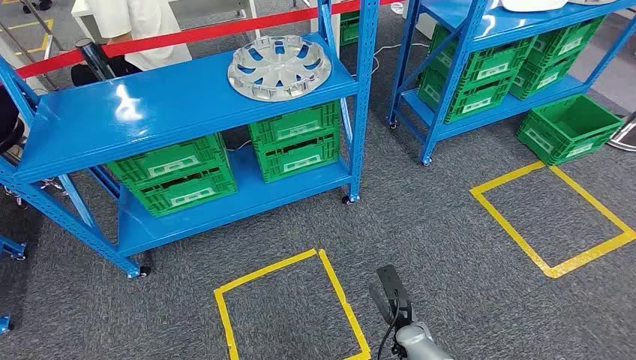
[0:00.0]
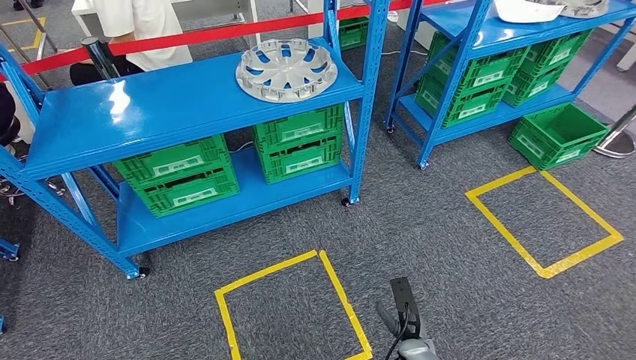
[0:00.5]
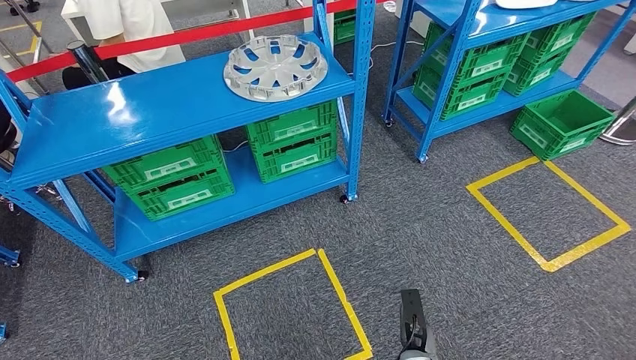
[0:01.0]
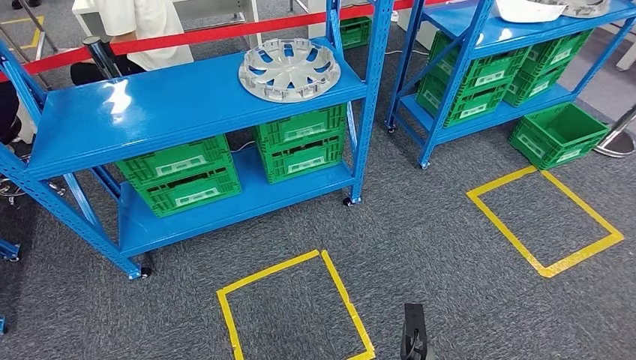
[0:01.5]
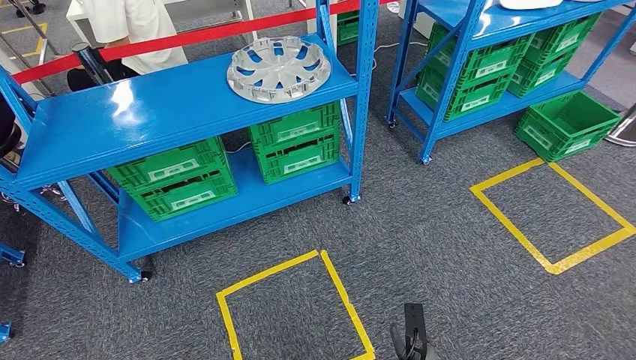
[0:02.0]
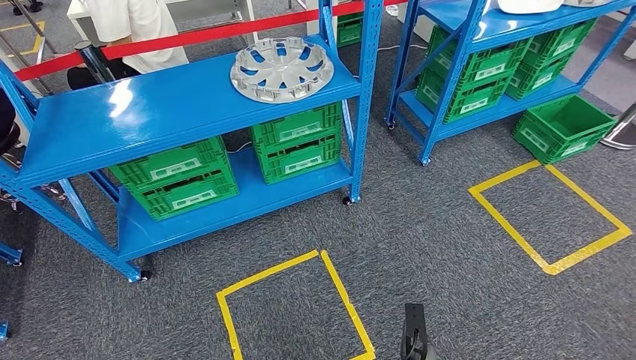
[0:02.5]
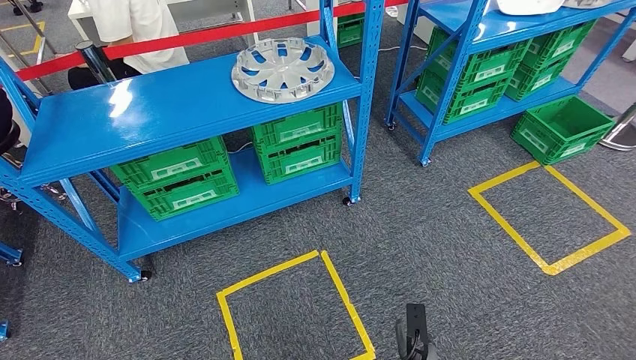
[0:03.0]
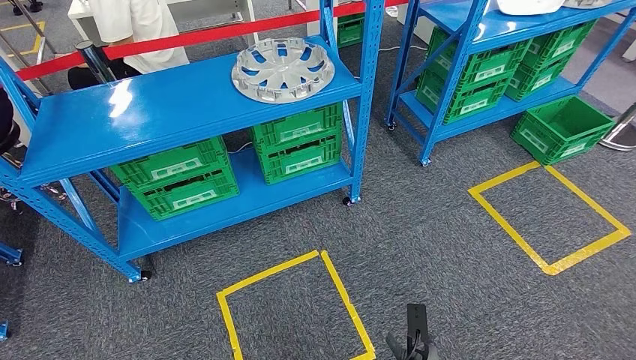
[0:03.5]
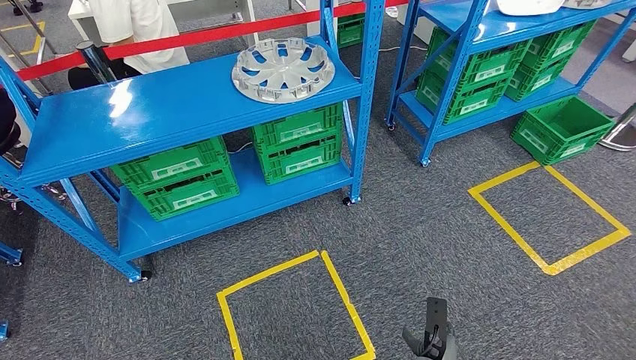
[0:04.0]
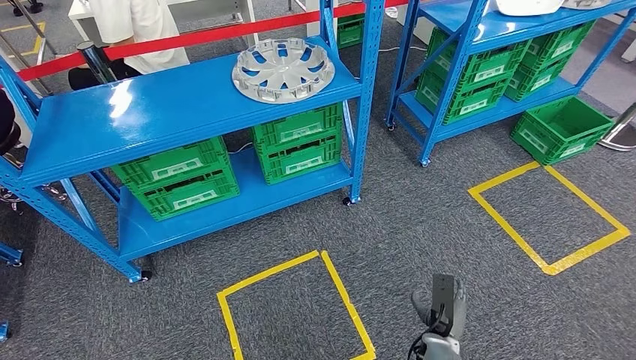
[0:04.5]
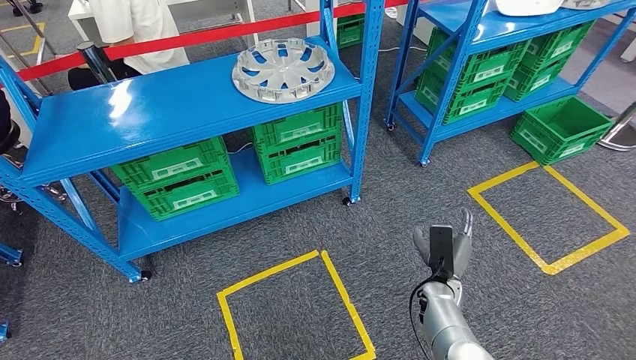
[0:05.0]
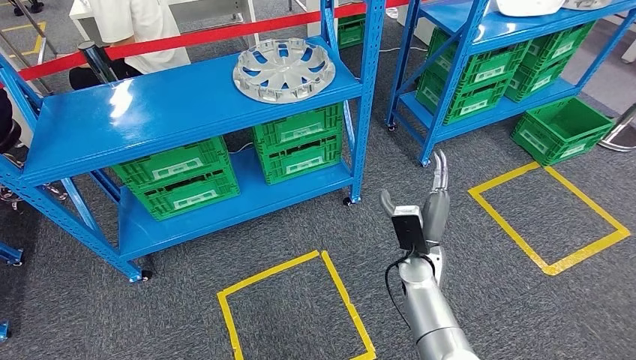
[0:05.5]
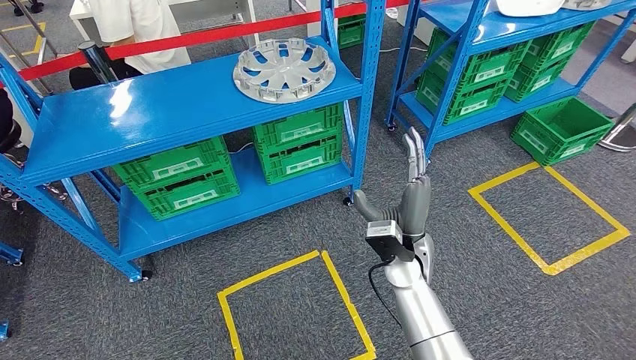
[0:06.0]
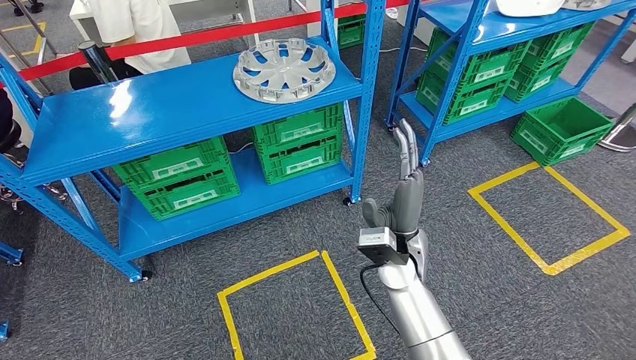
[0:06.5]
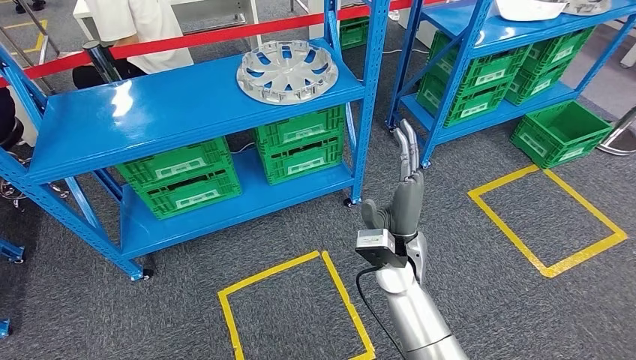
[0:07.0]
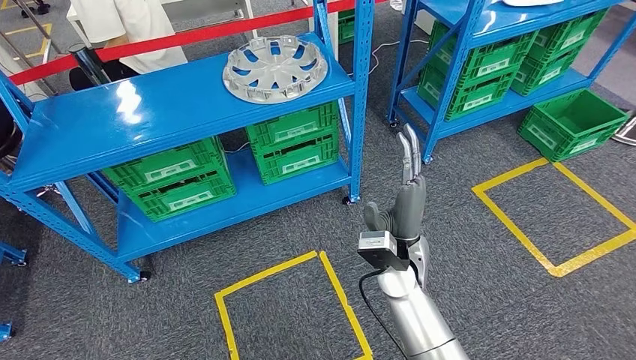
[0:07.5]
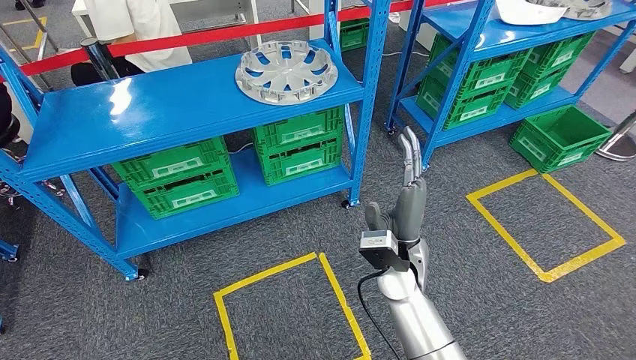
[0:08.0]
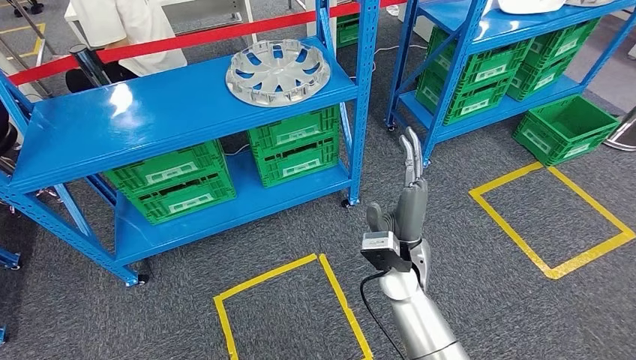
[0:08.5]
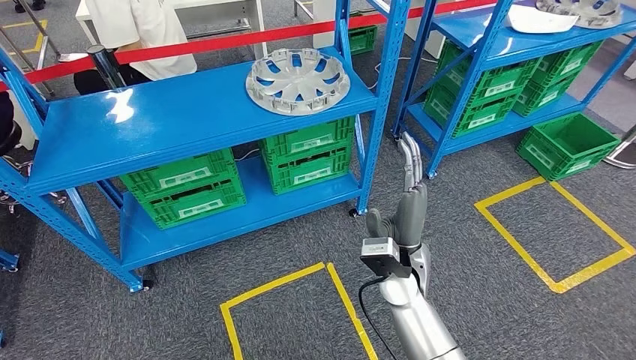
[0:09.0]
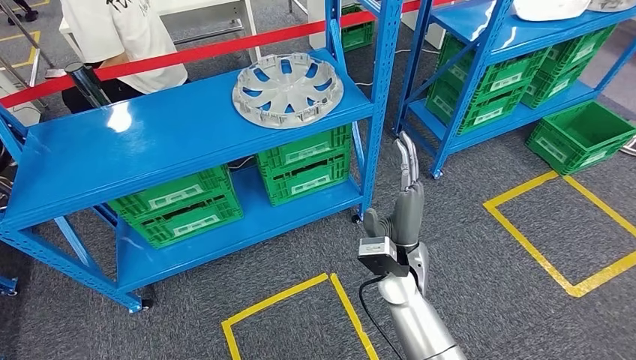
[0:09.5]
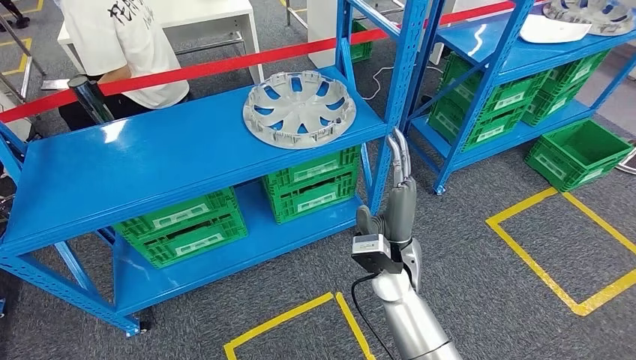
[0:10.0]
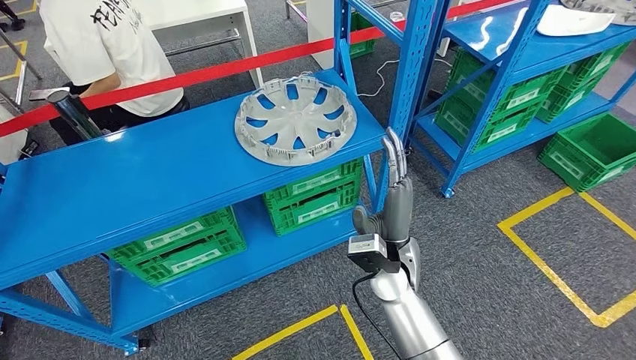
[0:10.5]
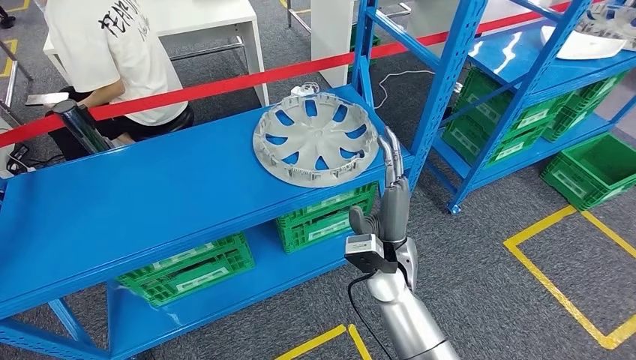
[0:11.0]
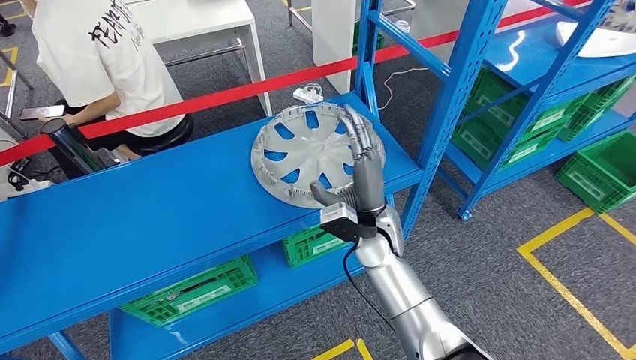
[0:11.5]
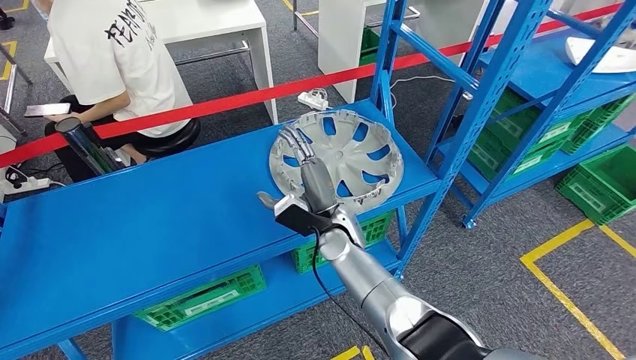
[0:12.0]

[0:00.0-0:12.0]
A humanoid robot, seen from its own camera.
0:02.0 to 0:04.0: The hands stay close to where they were, moving slightly.
0:04.0 to 0:06.0: The right hand moves forward and upward, some 30 cm.

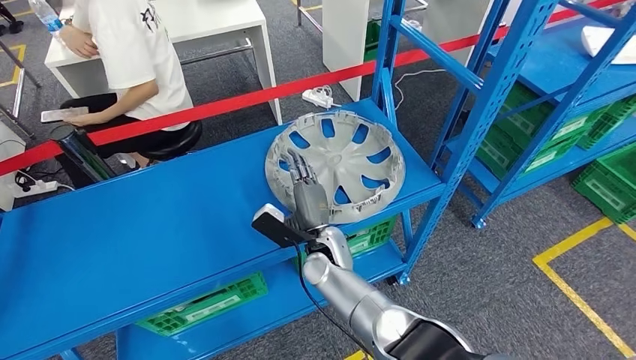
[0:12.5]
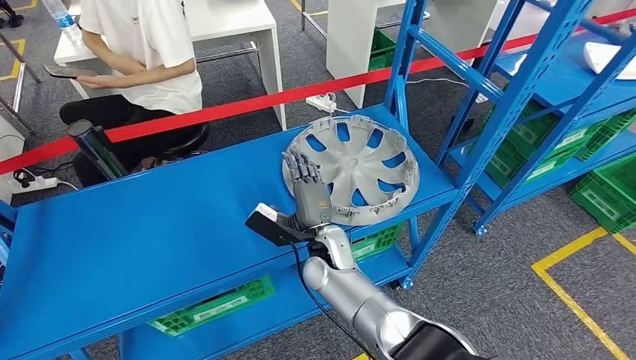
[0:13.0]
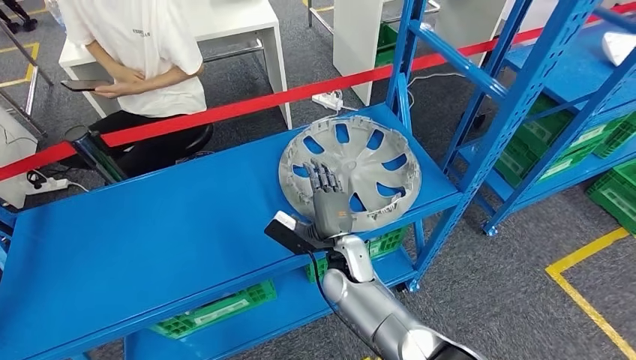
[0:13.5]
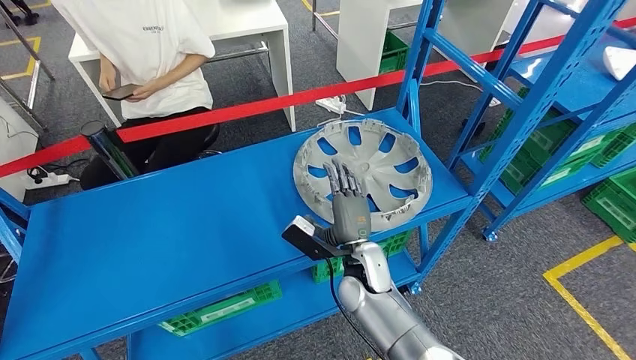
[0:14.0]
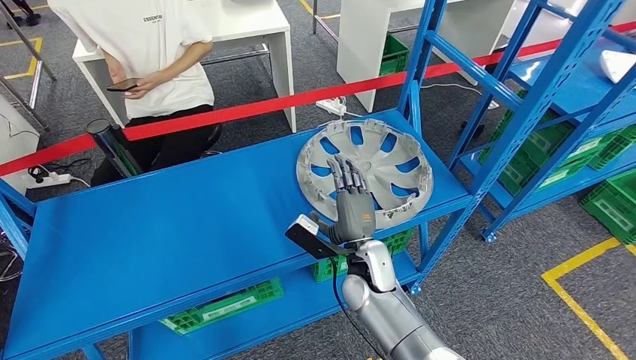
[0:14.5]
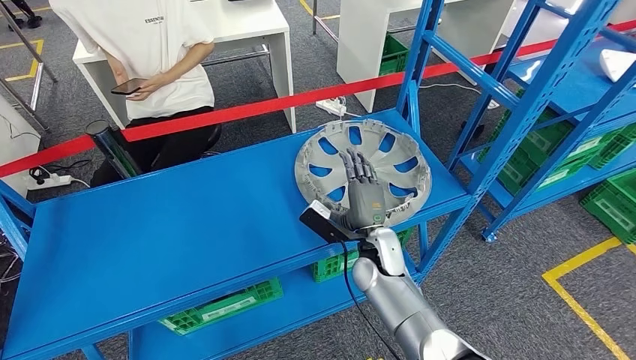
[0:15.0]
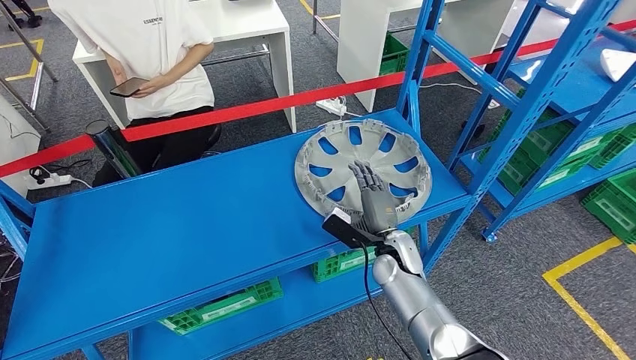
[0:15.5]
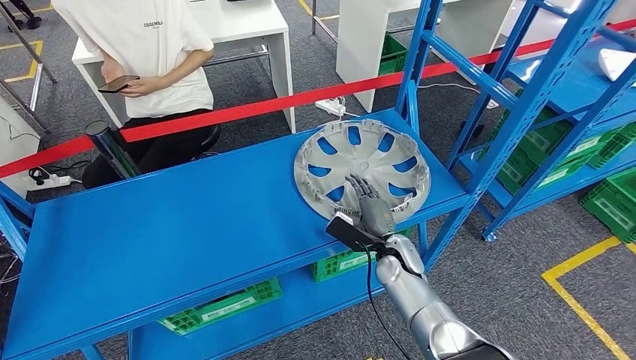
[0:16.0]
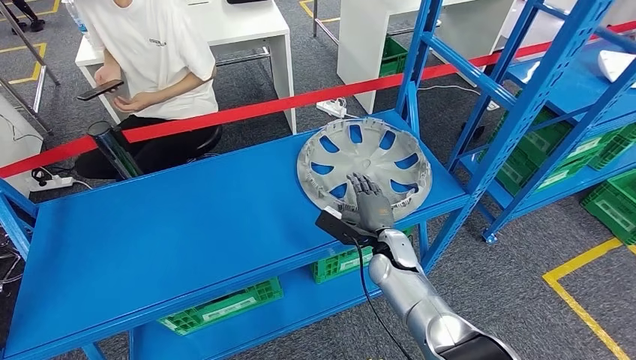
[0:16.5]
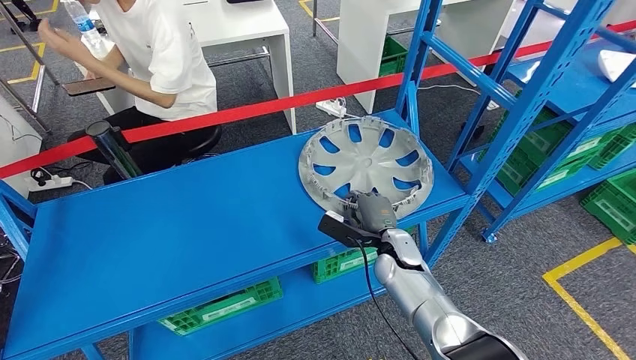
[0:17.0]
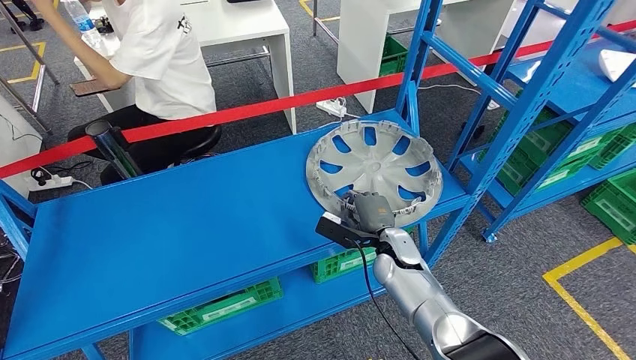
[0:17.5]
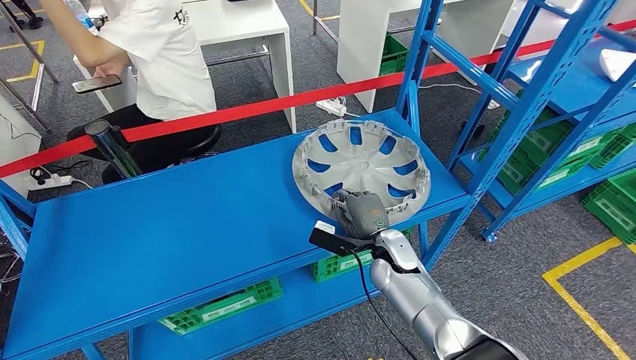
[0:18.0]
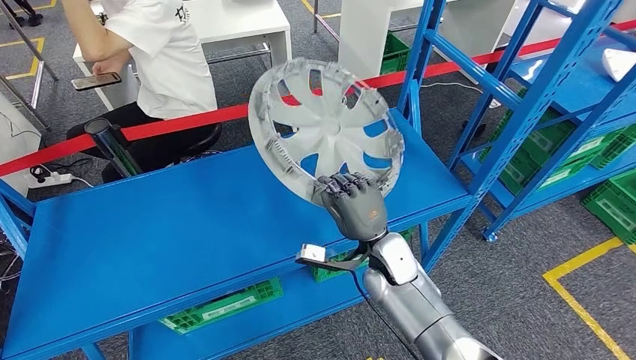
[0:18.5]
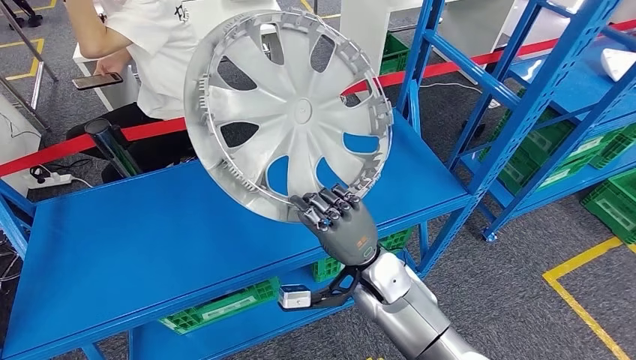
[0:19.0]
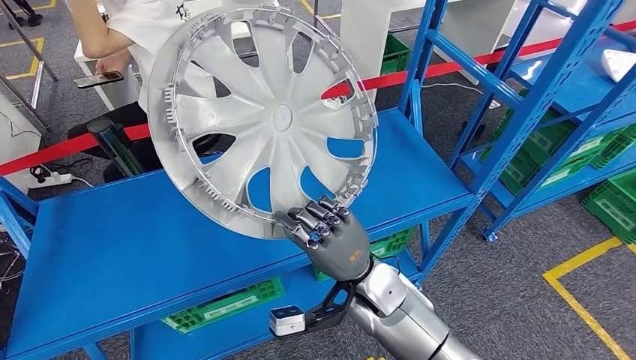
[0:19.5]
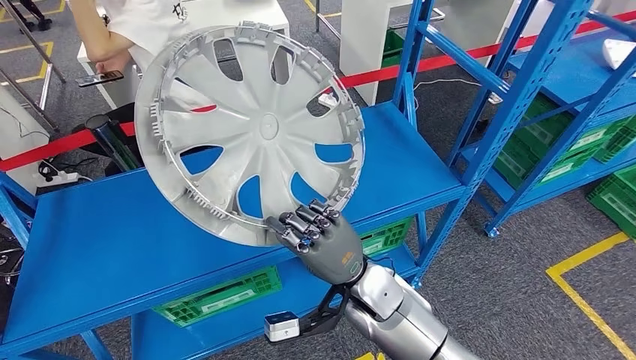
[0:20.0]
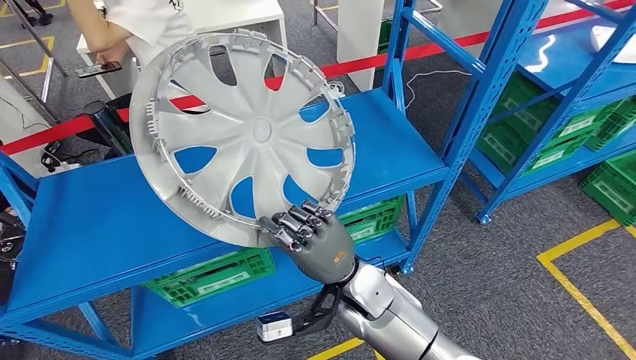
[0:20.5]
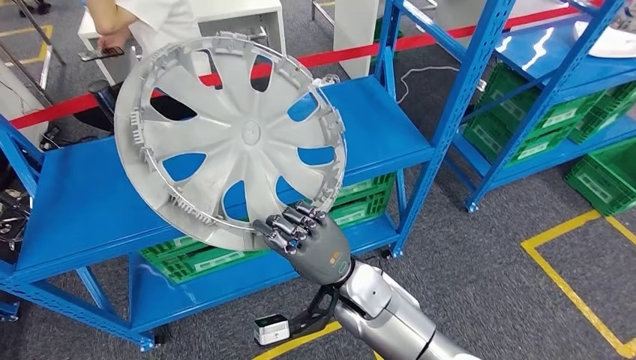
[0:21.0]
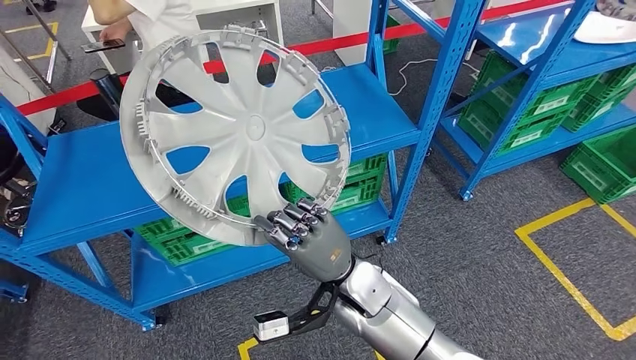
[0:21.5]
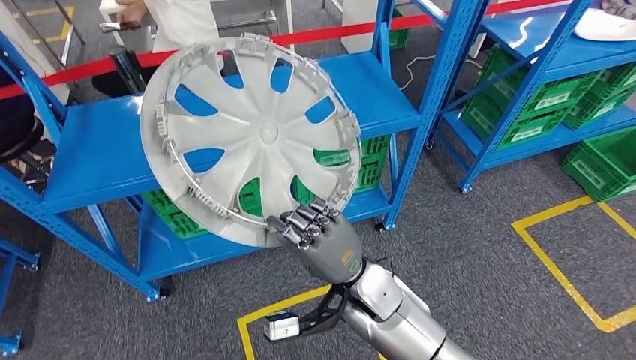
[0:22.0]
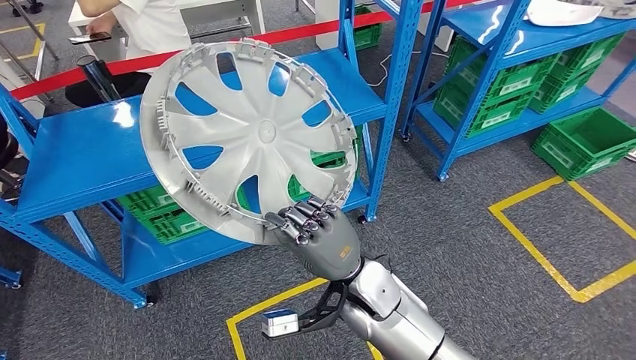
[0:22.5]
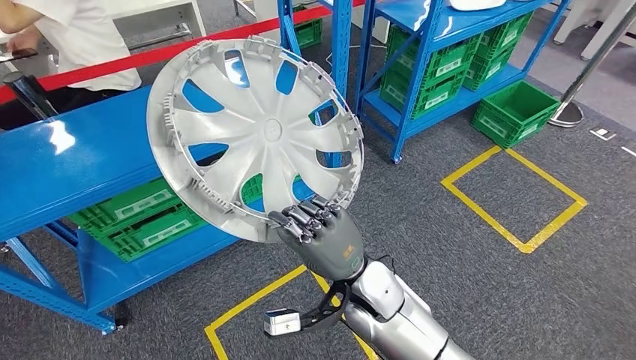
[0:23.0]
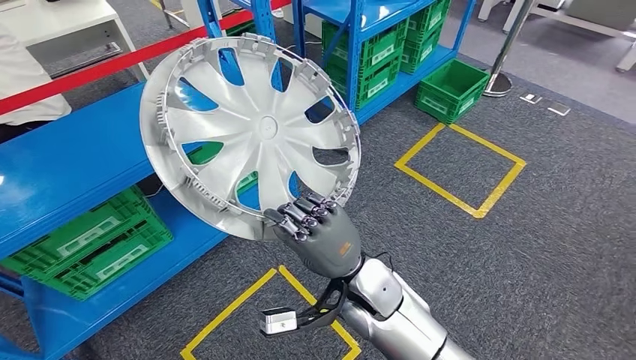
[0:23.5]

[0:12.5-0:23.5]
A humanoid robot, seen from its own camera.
Step, 0:12.5 to 0:19.5: Pick up the small component from the shelf.
0:14.5 to 0:16.0: The right hand is displaced to the right and downward by roughly 10 cm.
